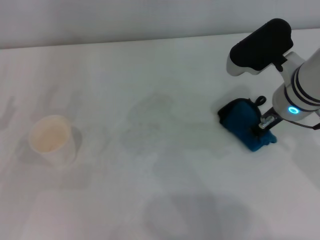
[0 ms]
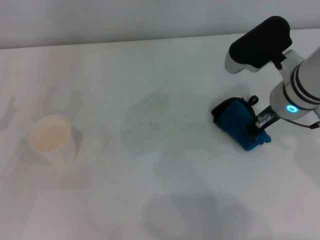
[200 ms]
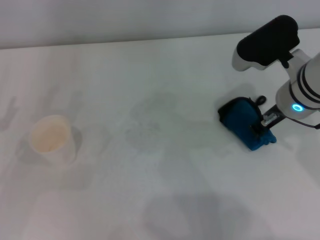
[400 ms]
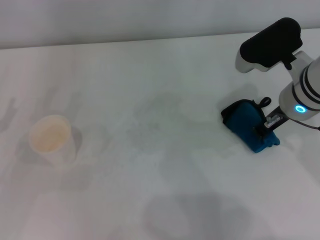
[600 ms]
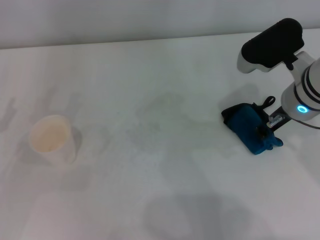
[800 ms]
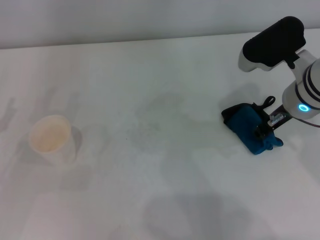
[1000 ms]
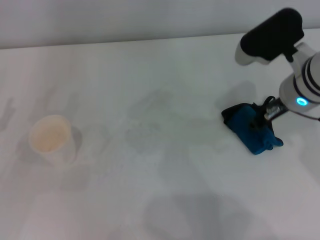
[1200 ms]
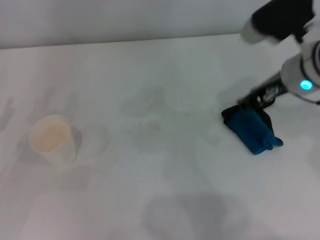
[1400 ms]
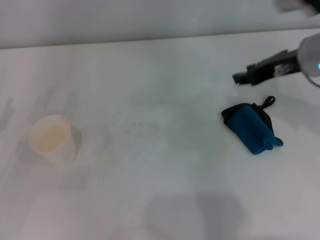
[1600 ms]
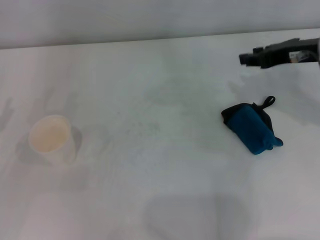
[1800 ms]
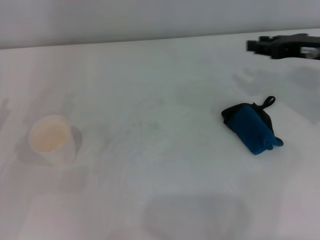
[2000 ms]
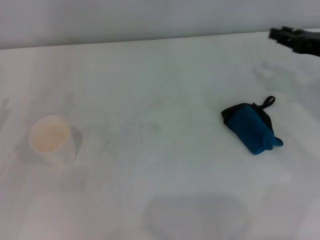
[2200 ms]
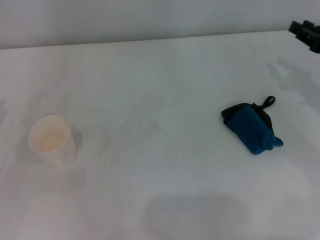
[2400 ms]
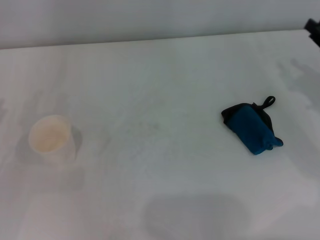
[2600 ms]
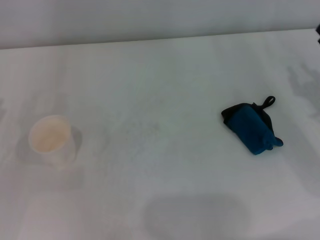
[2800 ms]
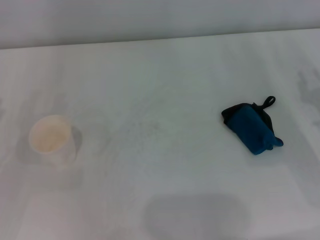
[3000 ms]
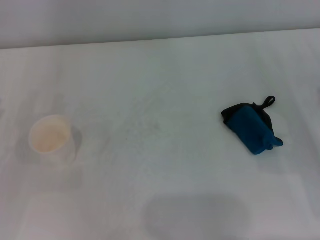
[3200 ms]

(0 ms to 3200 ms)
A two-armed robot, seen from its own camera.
Step, 200 ms - 600 ms: Place the rag on the table with the right gripper.
0 ms - 1600 ms: The right gripper moves about 5 cm, and opens.
1600 ms - 3200 ms: The right gripper shifts roughly 20 cm downward, to the right and backward.

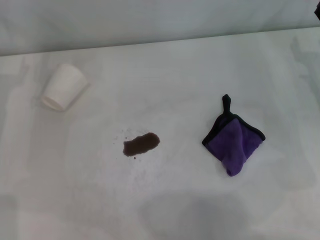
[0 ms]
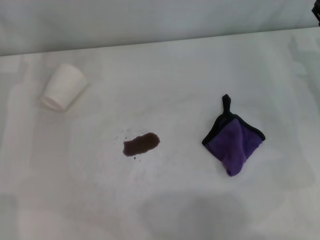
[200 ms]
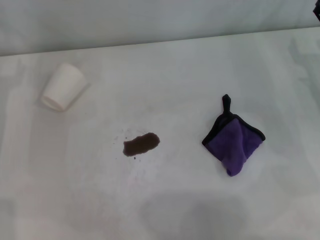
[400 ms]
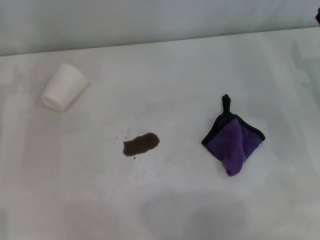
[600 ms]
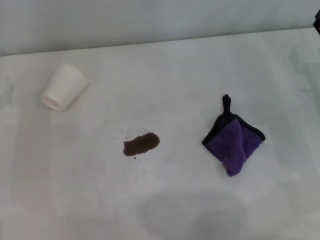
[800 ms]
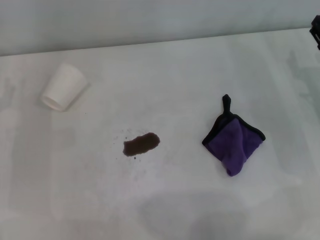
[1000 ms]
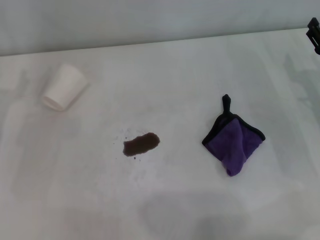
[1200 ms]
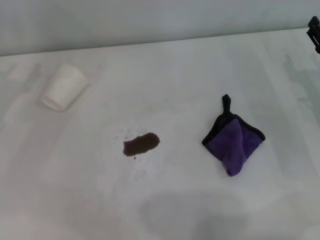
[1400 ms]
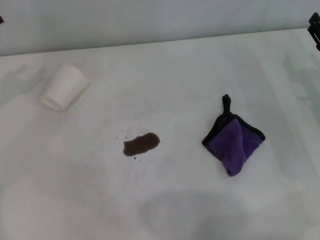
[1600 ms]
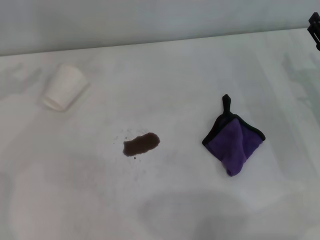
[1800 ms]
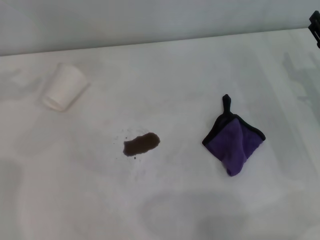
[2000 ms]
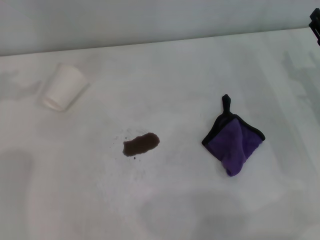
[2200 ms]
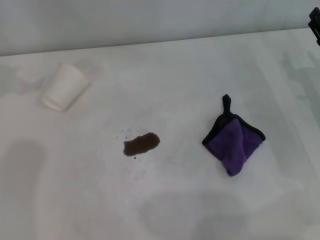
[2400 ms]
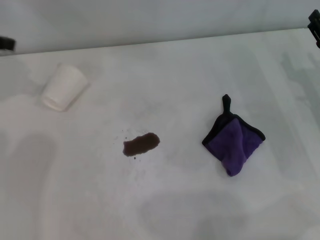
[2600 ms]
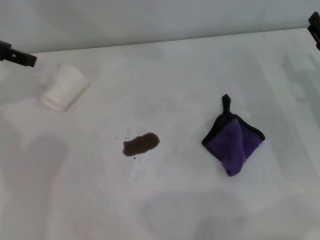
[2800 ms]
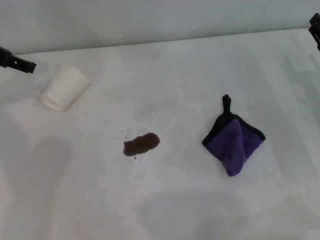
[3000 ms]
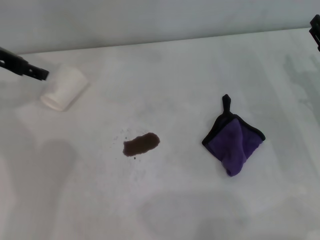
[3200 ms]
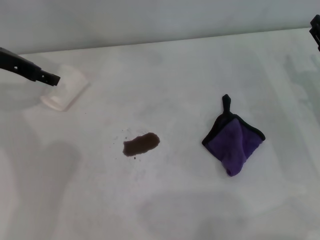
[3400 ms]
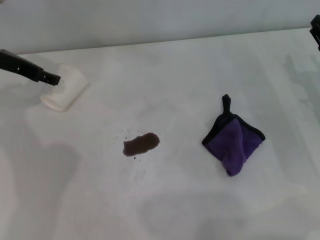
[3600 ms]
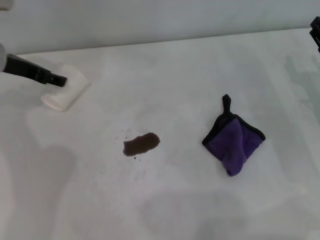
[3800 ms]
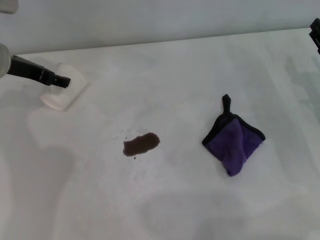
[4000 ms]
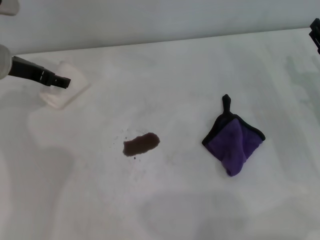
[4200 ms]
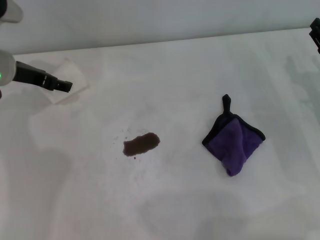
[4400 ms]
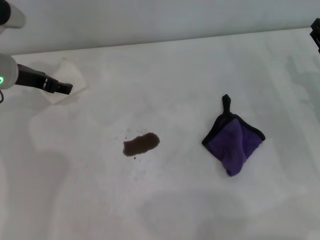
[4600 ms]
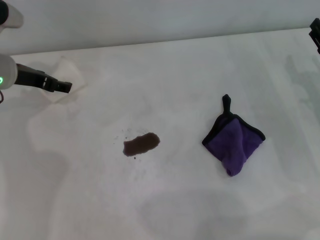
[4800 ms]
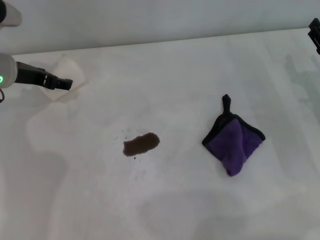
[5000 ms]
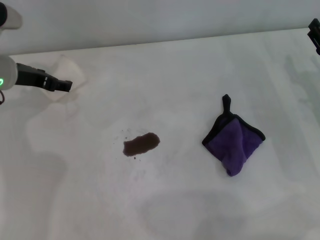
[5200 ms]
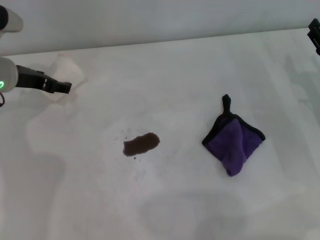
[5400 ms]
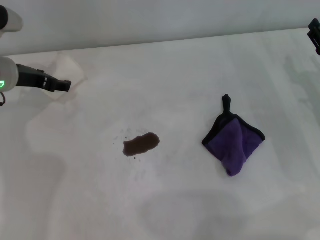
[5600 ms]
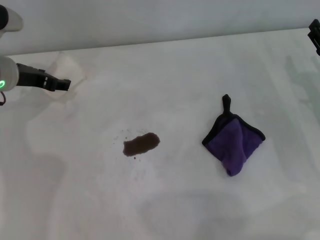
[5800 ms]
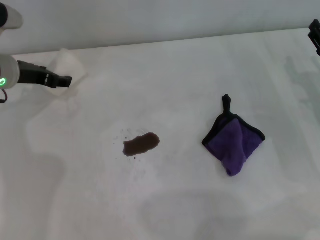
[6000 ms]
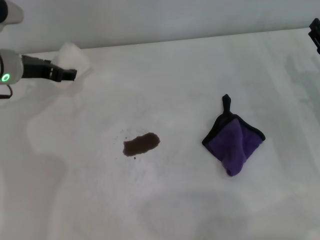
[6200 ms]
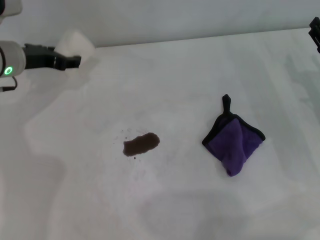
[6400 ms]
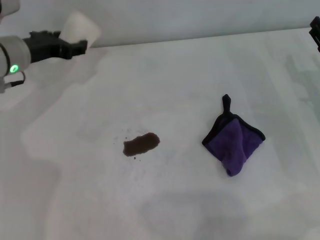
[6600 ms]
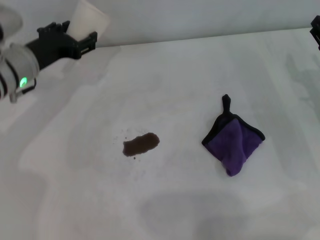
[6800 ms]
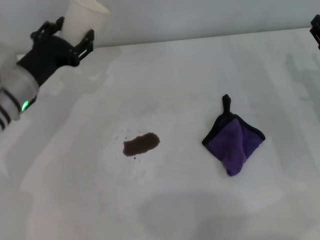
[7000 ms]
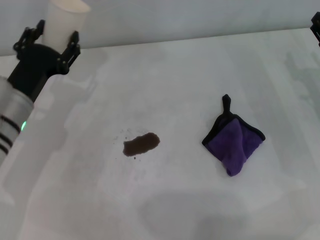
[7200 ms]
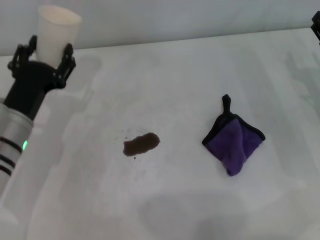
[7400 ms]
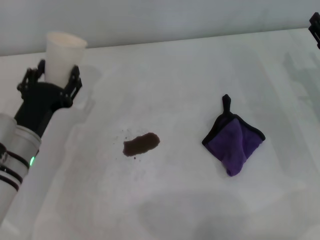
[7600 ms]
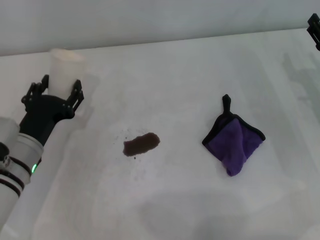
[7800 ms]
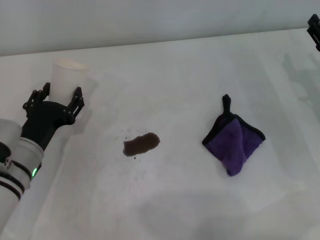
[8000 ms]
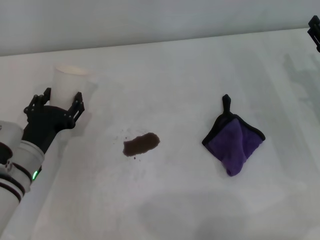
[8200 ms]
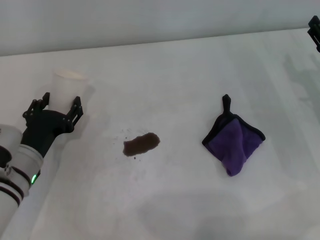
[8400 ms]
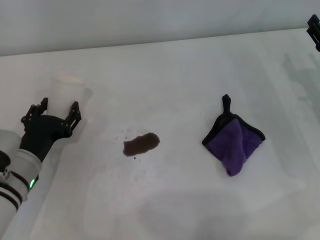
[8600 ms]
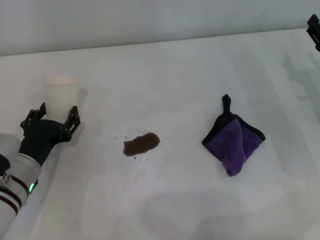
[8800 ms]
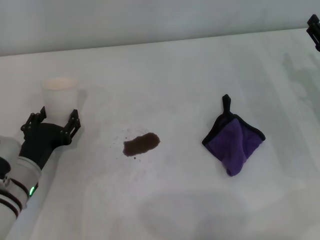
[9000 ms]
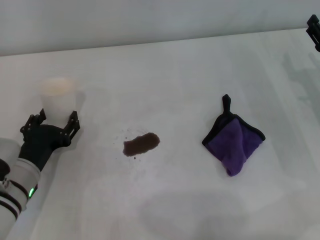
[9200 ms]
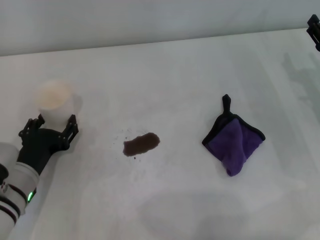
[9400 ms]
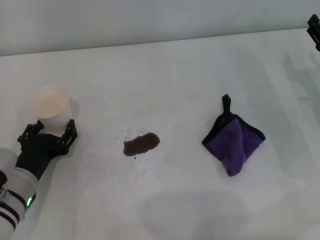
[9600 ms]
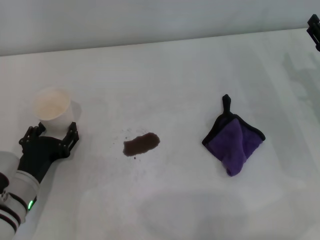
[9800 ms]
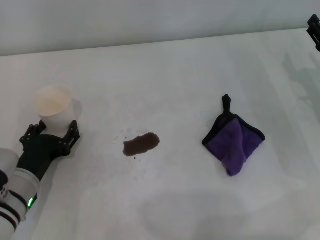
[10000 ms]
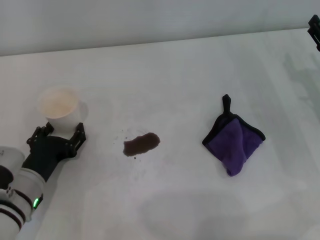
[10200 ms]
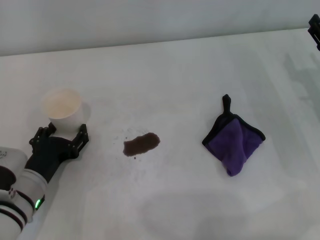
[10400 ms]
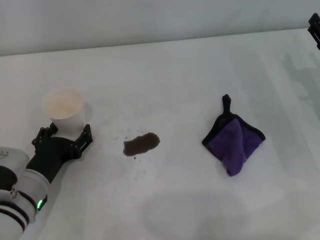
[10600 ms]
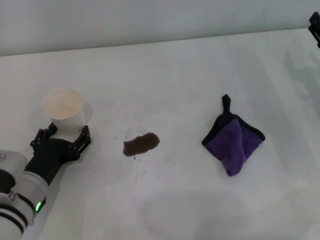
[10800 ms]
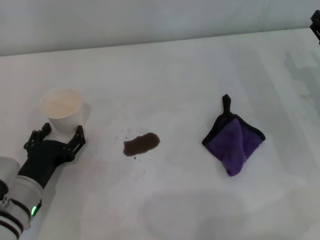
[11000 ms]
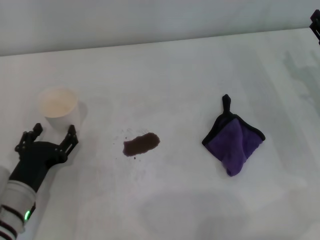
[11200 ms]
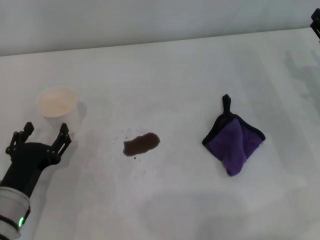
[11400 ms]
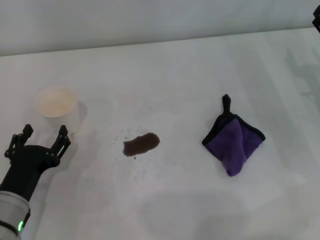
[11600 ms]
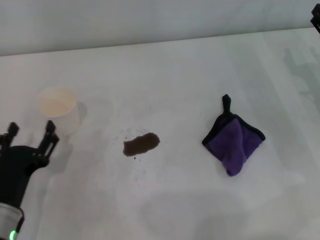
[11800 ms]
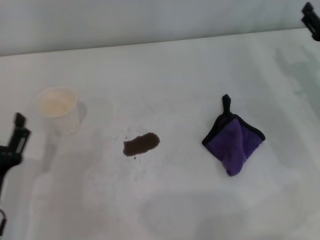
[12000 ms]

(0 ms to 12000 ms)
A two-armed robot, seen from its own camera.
Step, 0 ms - 5800 ms: Grasp the paper cup with the left gripper.
Step, 6000 ms - 10800 ms: Stand the paper cup upright with the left gripper.
1600 ms - 3000 ms: The left gripper goes roughly 10 cm to the right, upward and forward.
3000 ms - 4400 ms: The left gripper moves downward, roughly 10 cm.
4400 ms - 6000 ms: The grippers move only a little.
6000 ms - 7600 ms: The left gripper heads backward and downward, covering approximately 15 cm.
7600 ms - 9000 ms: The grippers move only a little.
9000 ms - 10400 ms: The grippers stay close to where they were, moving slightly.
10400 ms - 12000 ms: The left gripper moves backward, about 10 cm.

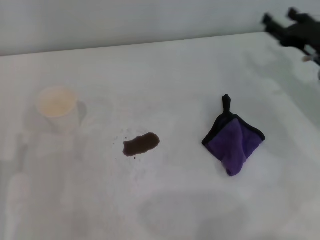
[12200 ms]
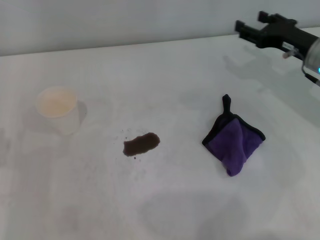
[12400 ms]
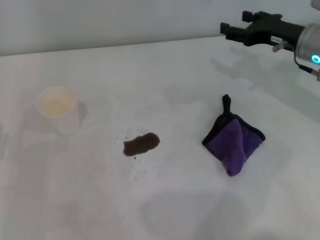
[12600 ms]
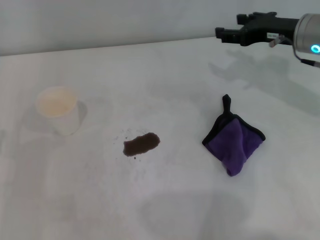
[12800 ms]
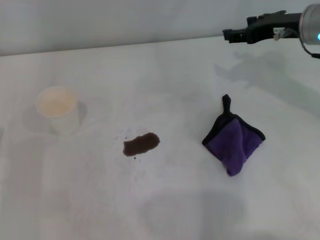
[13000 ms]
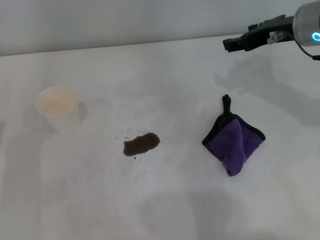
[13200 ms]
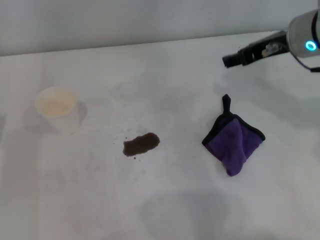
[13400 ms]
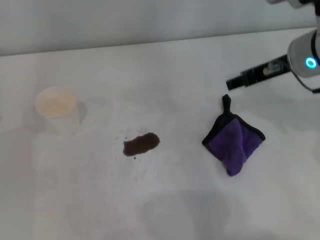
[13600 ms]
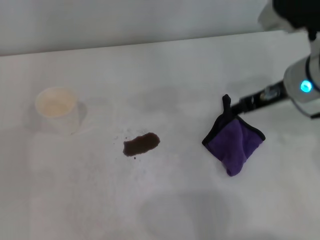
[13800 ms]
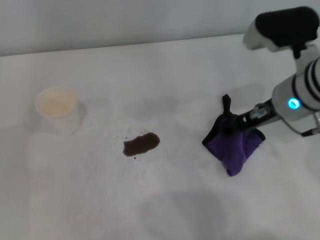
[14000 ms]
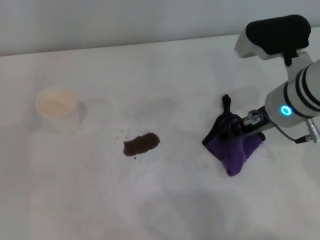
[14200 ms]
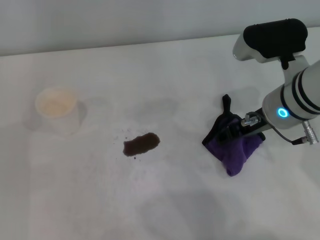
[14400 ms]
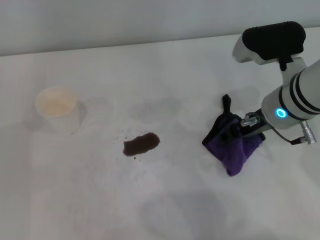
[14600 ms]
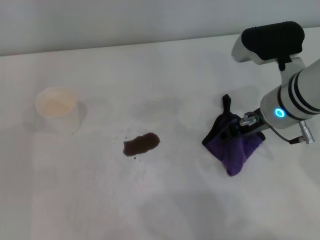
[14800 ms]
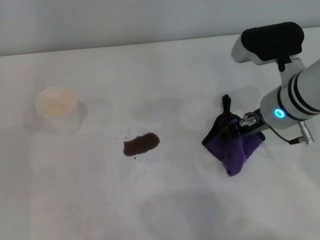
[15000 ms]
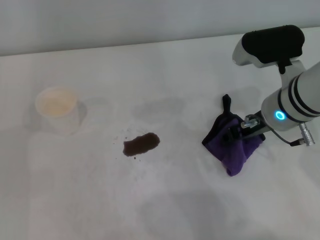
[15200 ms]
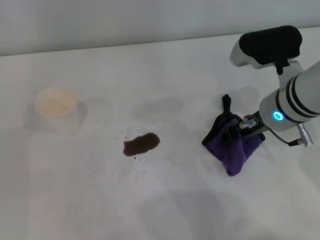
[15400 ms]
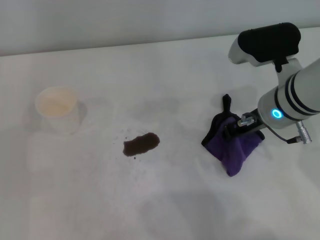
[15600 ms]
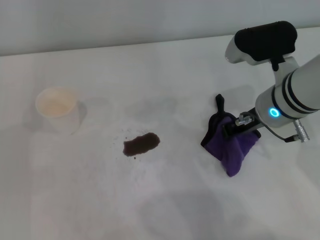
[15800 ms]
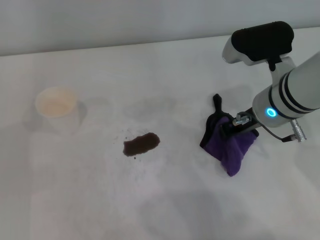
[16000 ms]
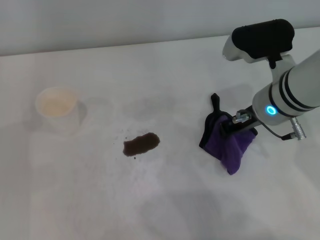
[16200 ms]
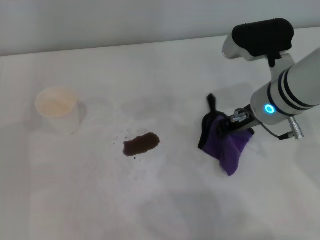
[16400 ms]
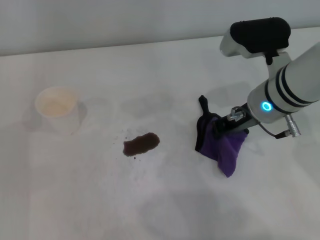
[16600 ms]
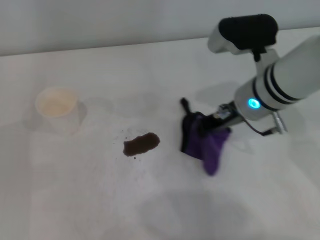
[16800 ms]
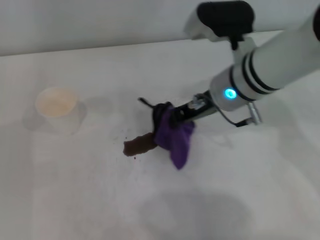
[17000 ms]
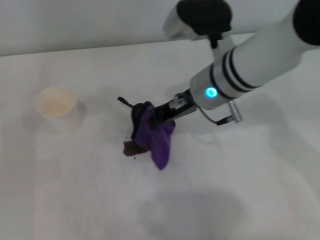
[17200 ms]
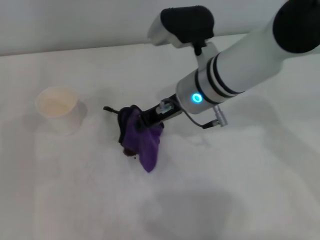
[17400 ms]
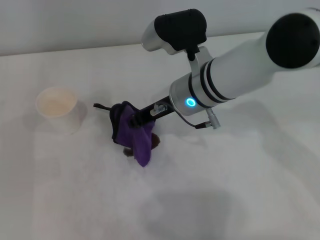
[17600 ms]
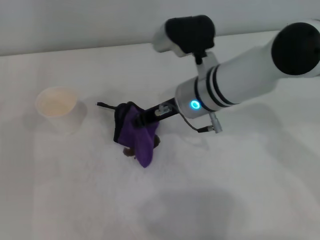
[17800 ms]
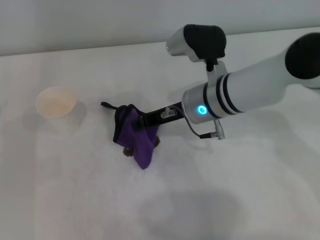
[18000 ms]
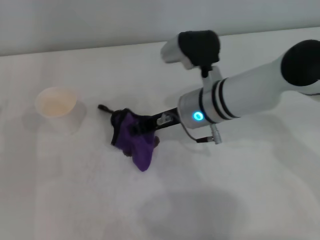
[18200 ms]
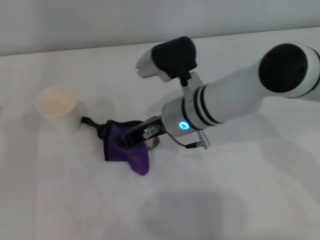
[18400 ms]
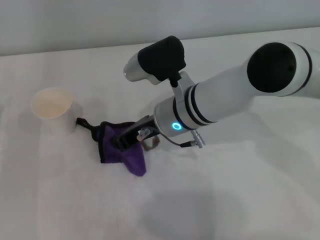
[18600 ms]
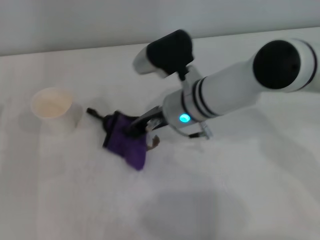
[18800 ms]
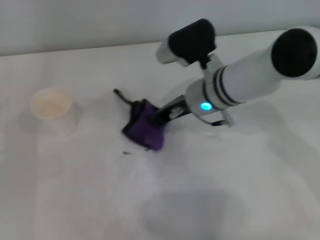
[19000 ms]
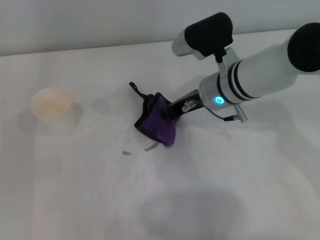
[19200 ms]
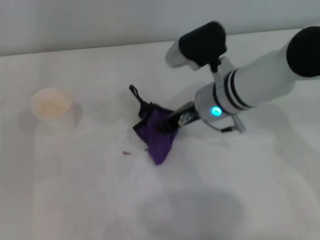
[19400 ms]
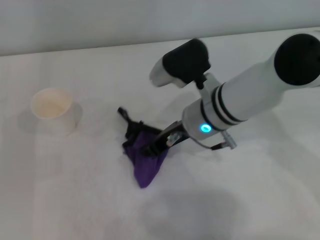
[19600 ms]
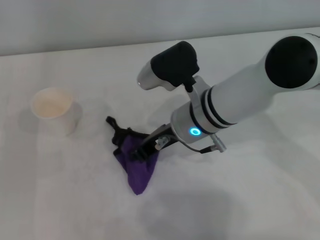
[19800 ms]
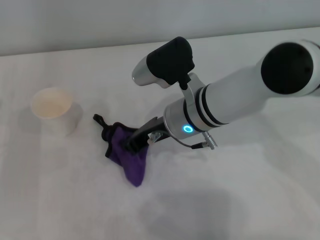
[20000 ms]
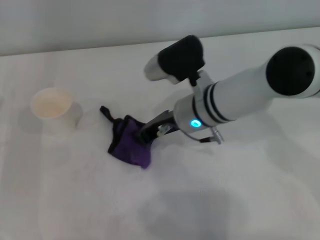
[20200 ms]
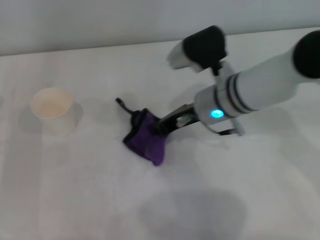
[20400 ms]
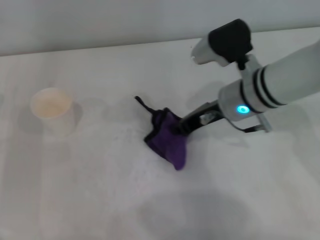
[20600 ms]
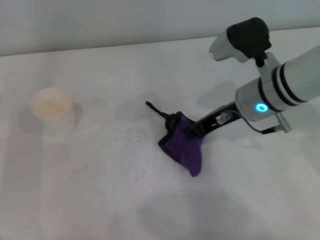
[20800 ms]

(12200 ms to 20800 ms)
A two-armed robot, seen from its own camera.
Step, 12200 ms - 16200 ms: Grasp the rag with the right gripper.
Step, 16400 ms - 20600 ms: Wipe the stains off the table with the right gripper.
12200 ms - 13600 ms: The right gripper shifts about 15 cm upward and to the left.
13600 ms - 15000 ms: The right gripper shifts approximately 5 cm downward.
15000 ms - 16600 ms: The right gripper closes up.
16600 ms - 18000 ms: The right gripper travels to the left by some 5 cm.
18000 ms - 19400 ms: The grippers stay close to where they were, moving slightly.
19400 ms - 20800 ms: The right gripper moves to the right, approximately 5 cm.
